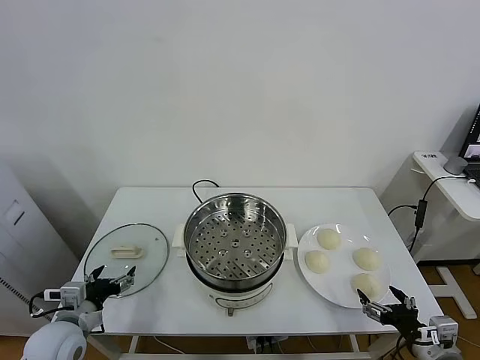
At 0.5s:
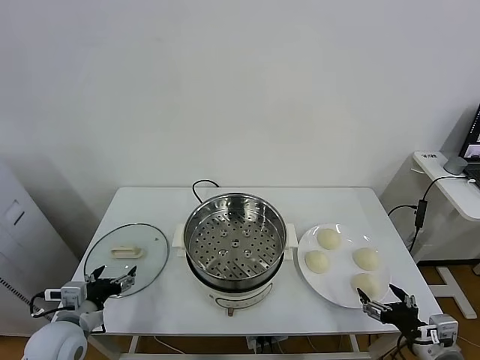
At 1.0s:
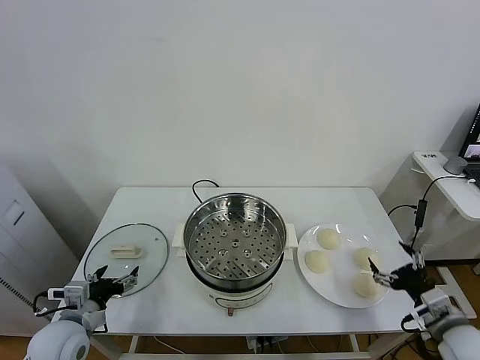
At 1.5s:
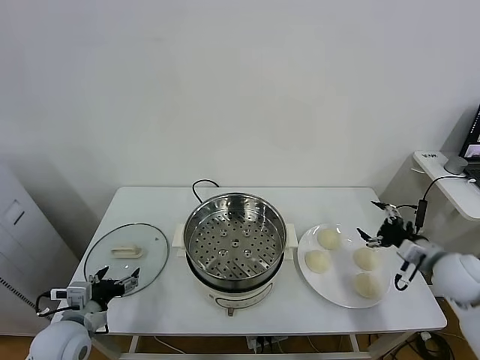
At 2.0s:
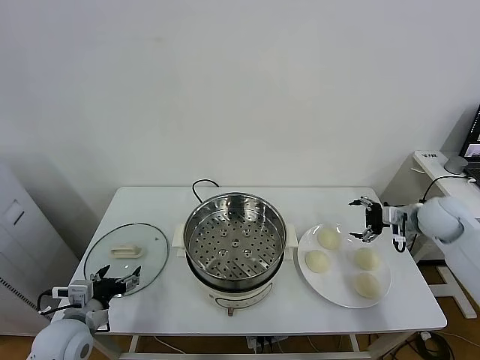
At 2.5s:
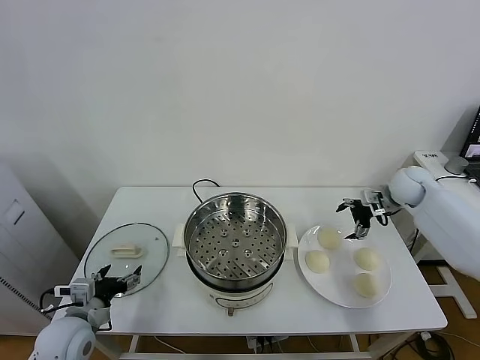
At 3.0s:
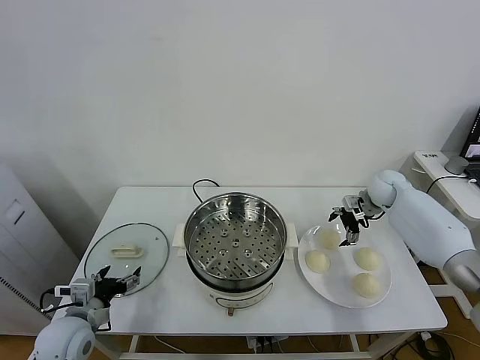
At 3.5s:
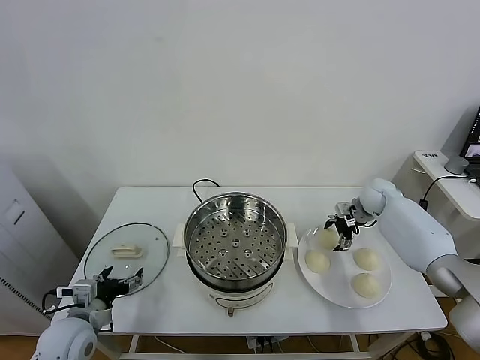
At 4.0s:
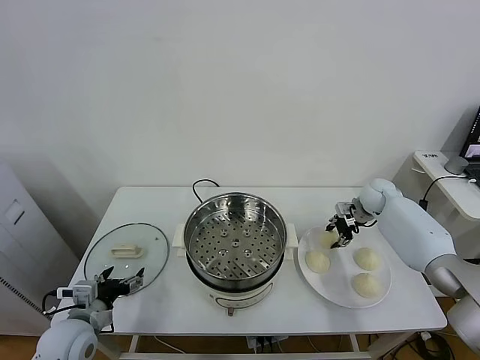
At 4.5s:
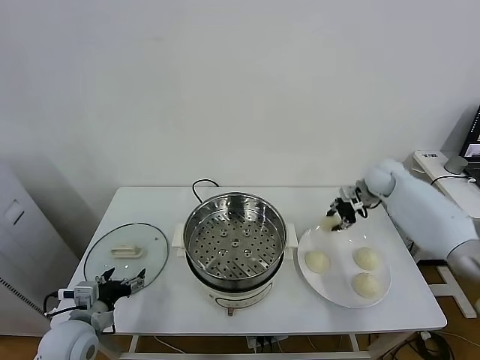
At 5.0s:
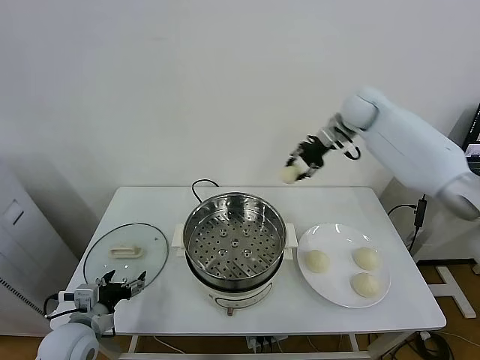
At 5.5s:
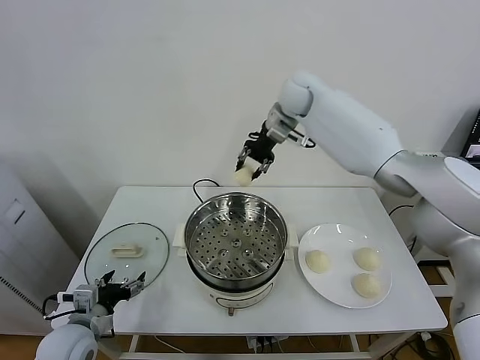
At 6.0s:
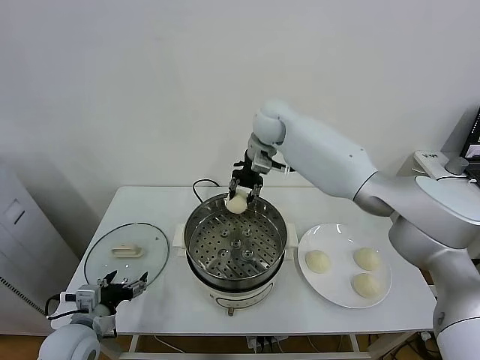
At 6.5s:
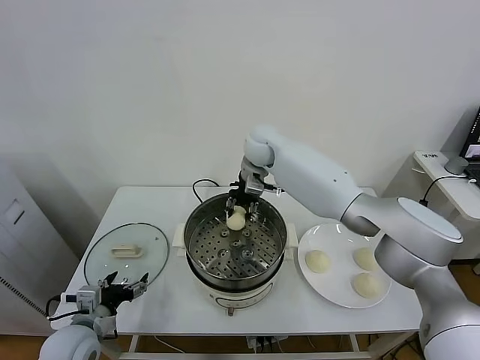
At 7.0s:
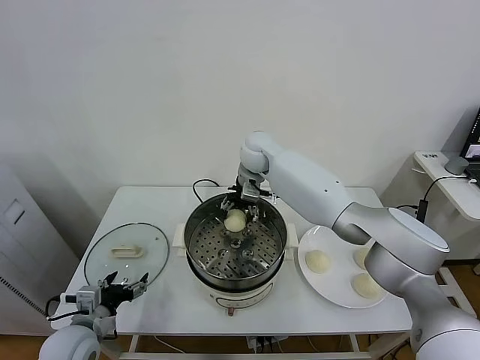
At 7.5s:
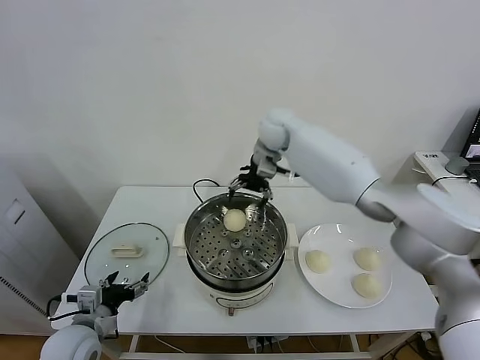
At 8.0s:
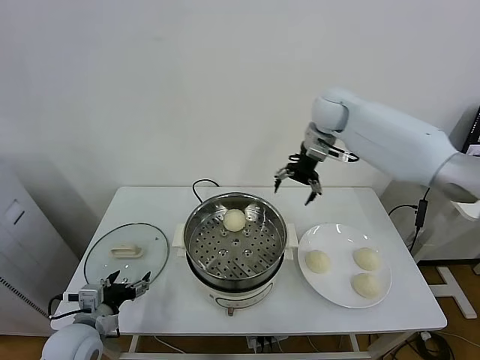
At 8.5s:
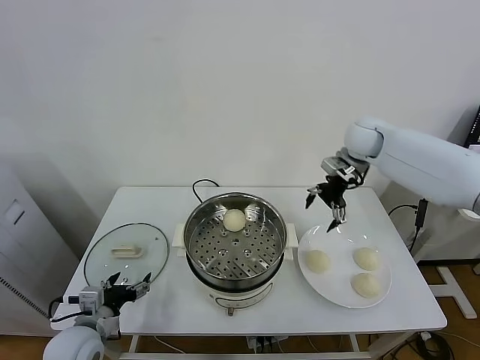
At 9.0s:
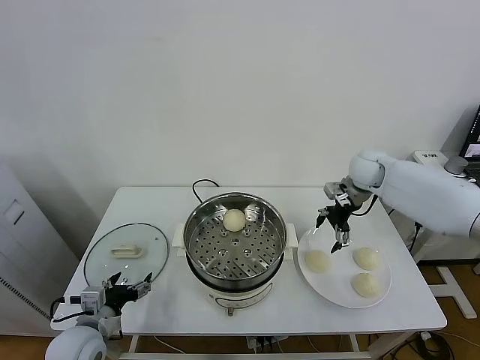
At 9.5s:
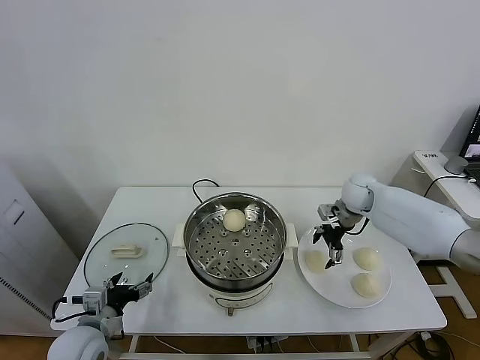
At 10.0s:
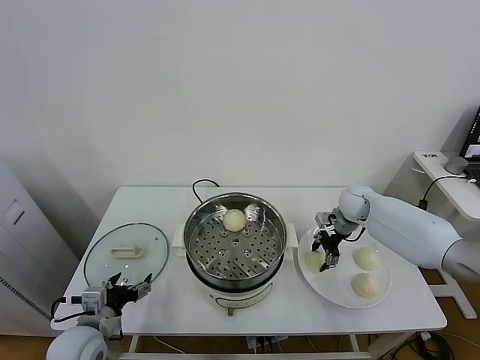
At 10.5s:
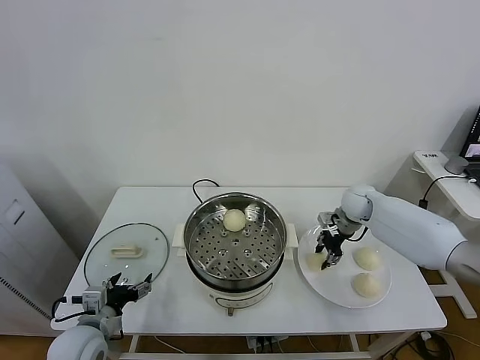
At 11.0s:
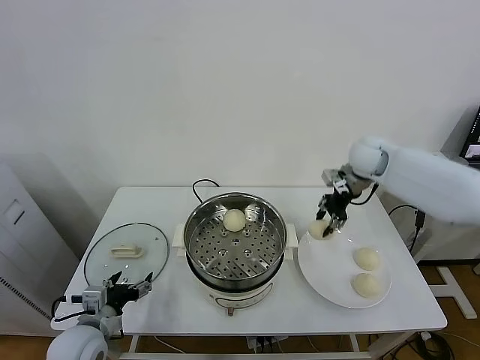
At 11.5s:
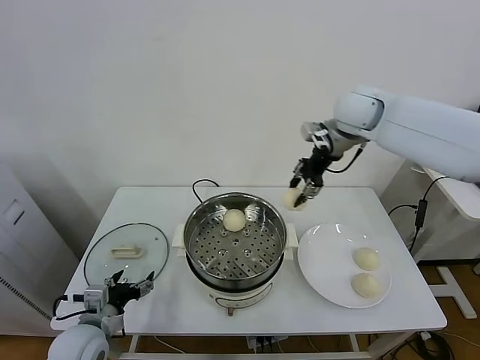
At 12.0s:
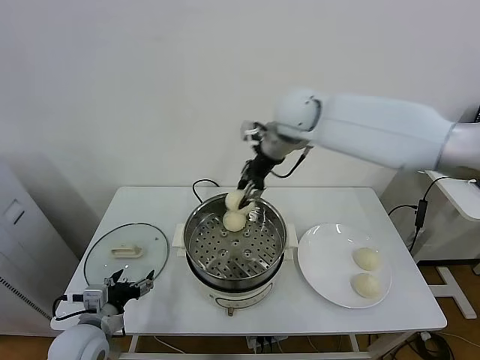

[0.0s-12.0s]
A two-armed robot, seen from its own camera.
Task of the whole recording: take steamed baozi put them in steamer.
Step, 0.0s to 4.0s: Grasp the baozi in the plate with right gripper.
Step, 4.5s to 7.0s: Place the baozi on the steamer with right gripper.
Step, 7.5s to 10.0s: Grasp the baozi in the plate with right gripper.
2.0s to 4.0s: The right gripper is displaced forward, downward and to the left by about 15 cm, and closes.
4.0s to 6.0s: The right gripper moves to the left and upward, some 40 cm.
6.0s to 8.0s: The right gripper goes about 15 cm to the right, and opens up.
8.0s to 10.0s: The right gripper is displaced downward by approximately 25 cm, and closes its fingers.
10.0s to 12.0s: The right gripper shifts some 35 cm upward and to the left.

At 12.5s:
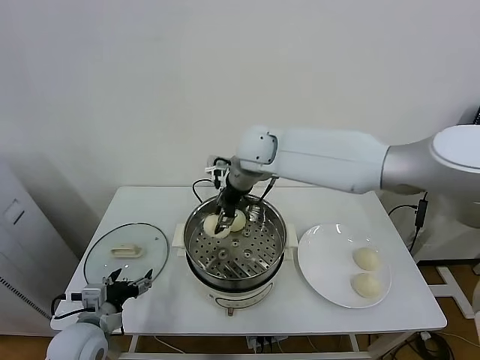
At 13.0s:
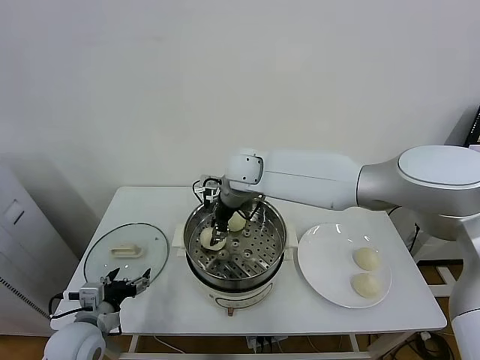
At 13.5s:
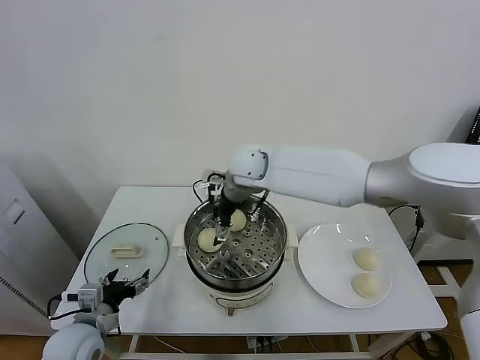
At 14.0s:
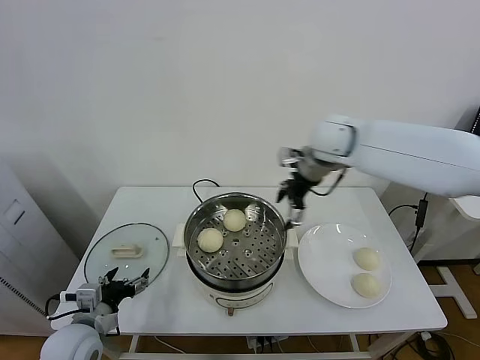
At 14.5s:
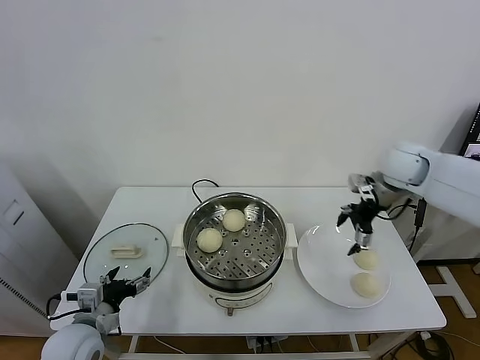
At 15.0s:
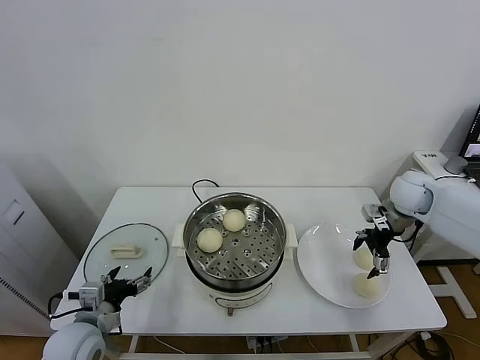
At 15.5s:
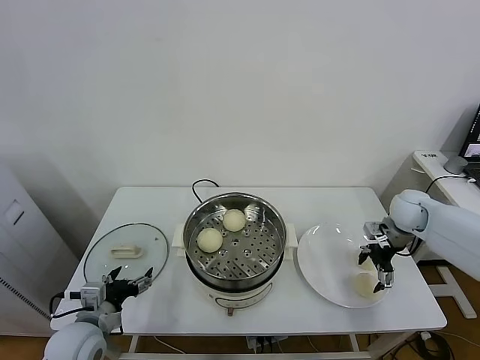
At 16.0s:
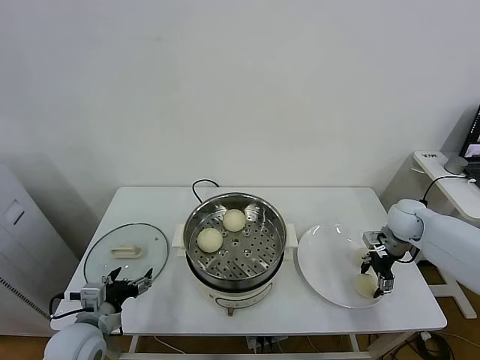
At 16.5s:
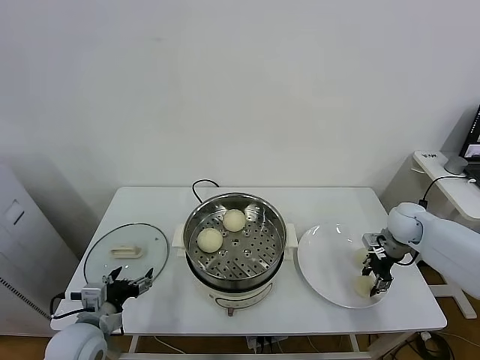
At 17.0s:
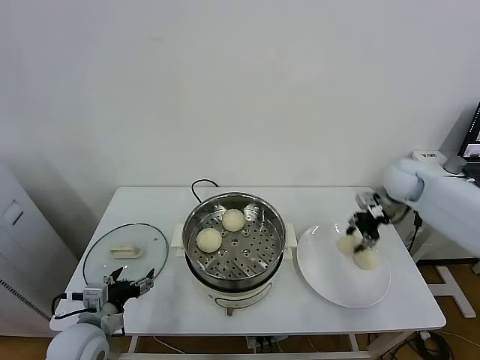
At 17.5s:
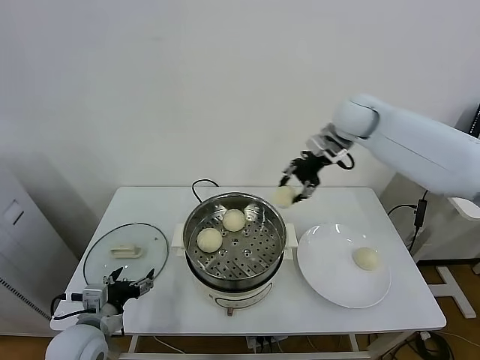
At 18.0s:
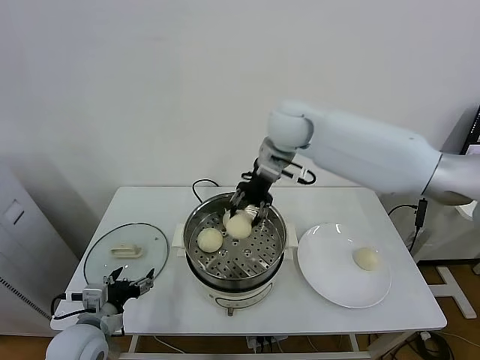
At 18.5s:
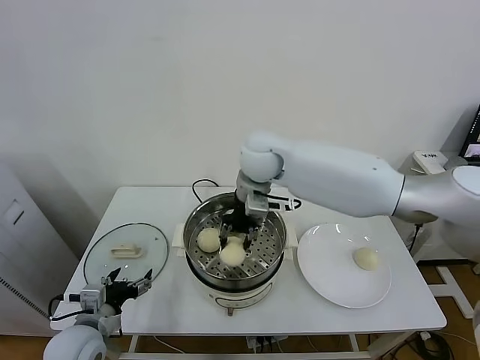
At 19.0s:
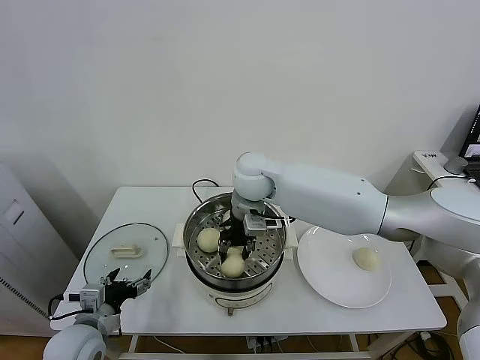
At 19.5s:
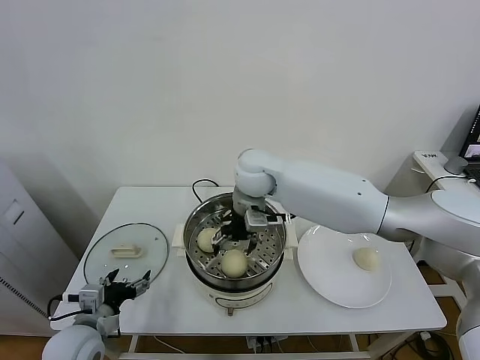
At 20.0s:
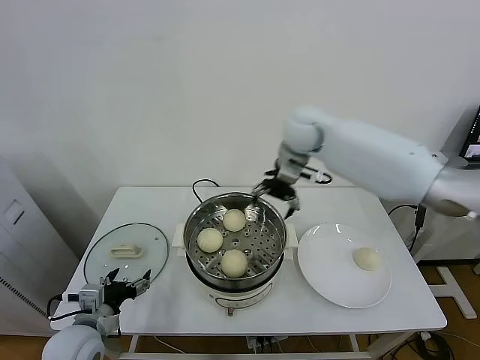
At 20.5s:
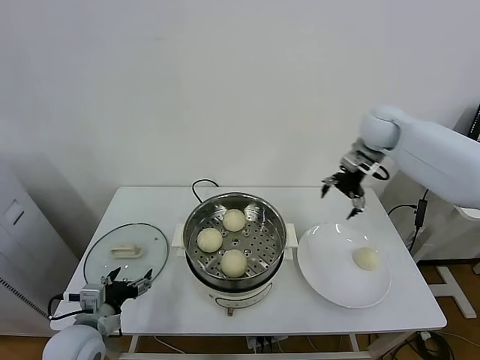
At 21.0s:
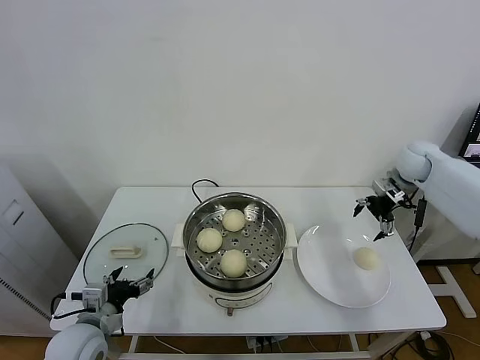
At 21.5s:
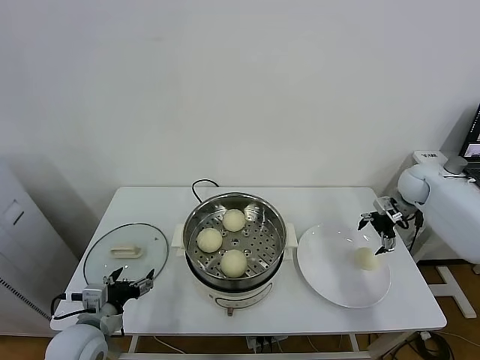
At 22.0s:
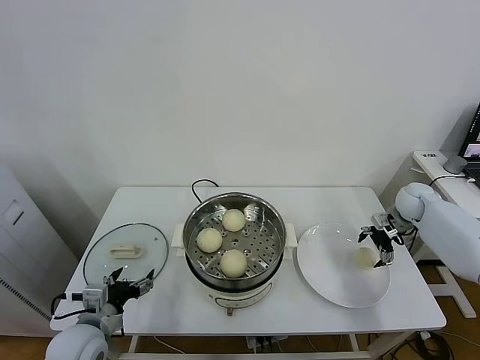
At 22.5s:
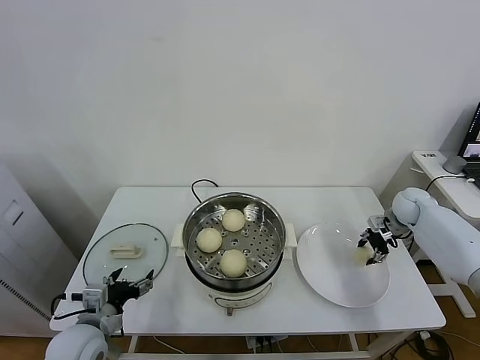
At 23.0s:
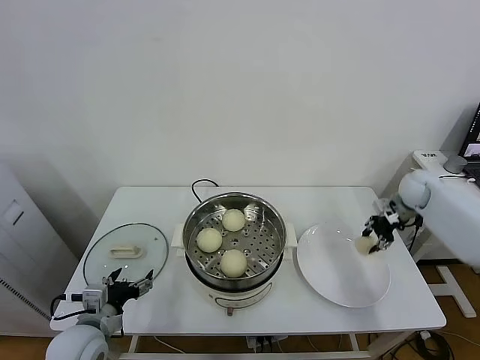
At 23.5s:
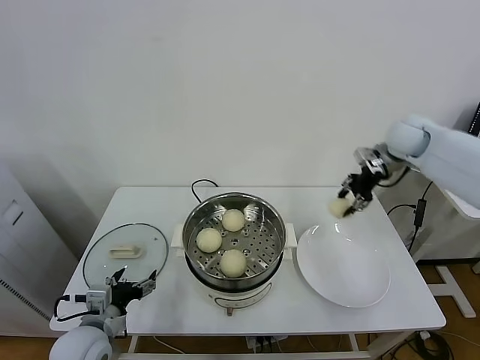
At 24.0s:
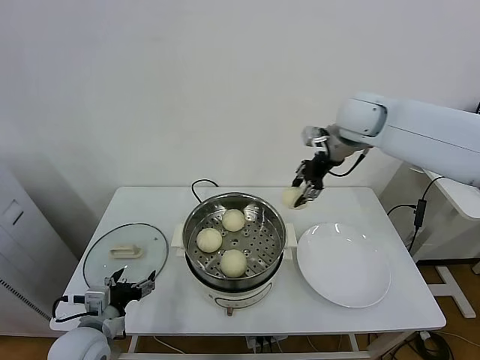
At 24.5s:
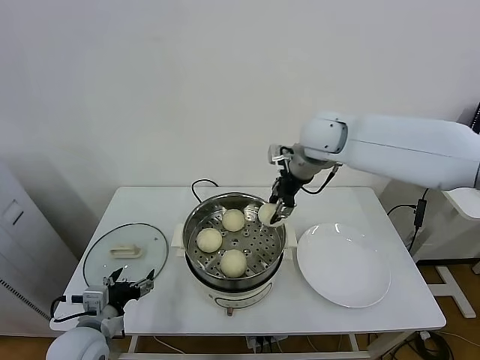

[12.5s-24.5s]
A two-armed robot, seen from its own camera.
Task of the whole recording: take steamed baozi put them in steamer.
Step, 14.0s to 16.5s: Grasp the baozi in the plate with right gripper.
Step, 17.0s to 19.5s: Place the baozi on the steamer with right gripper.
Step, 20.0s to 22.5s: Grasp the baozi in the plate with right gripper.
12.5s to 14.5s: The right gripper is displaced to the right by approximately 35 cm, and opens up.
14.5s to 16.5s: The right gripper moves downward, approximately 15 cm, and closes up.
16.5s to 18.5s: The right gripper travels to the left and upward by roughly 40 cm.
18.5s to 20.5s: The right gripper heads to the right, covering some 30 cm, and opens its fingers.
20.5s to 22.5s: The right gripper shifts some 25 cm downward and to the right, and closes up.
22.5s to 24.5s: The right gripper heads to the left and upward, covering approximately 40 cm.

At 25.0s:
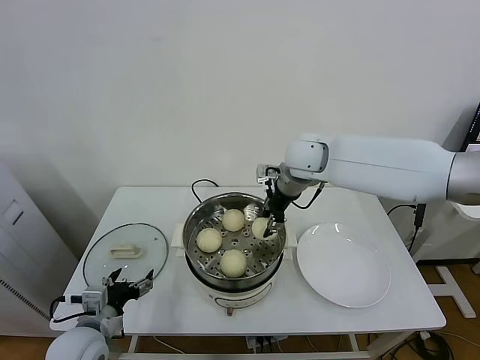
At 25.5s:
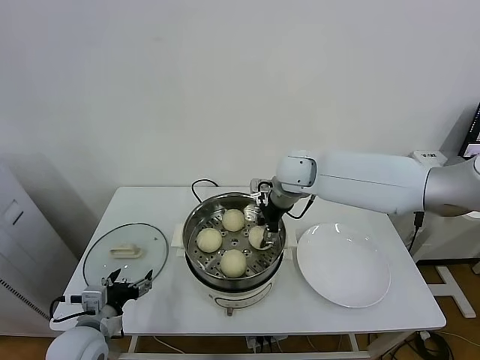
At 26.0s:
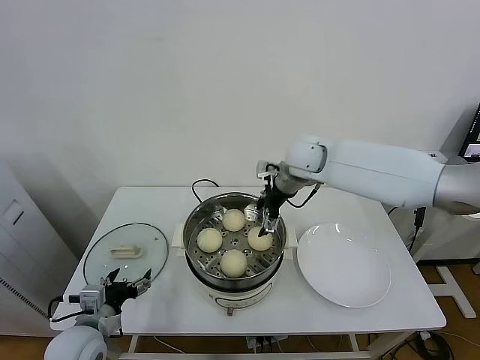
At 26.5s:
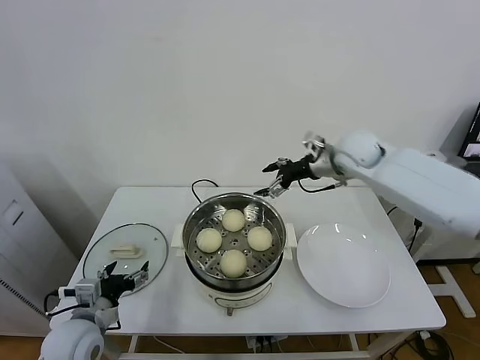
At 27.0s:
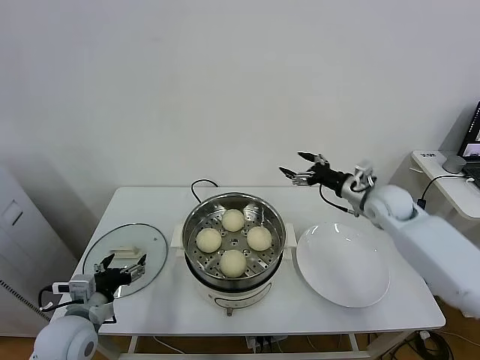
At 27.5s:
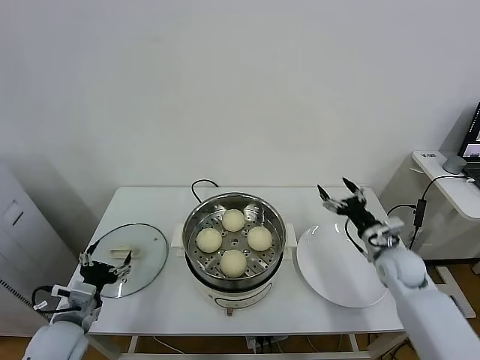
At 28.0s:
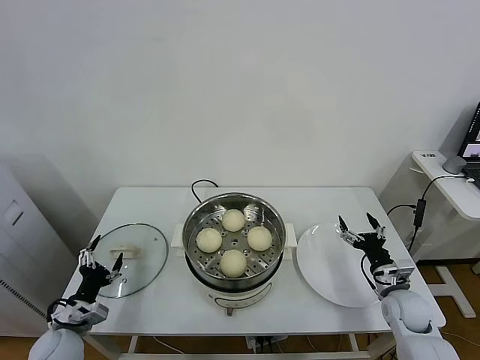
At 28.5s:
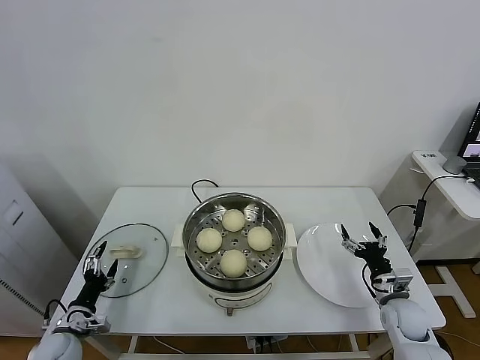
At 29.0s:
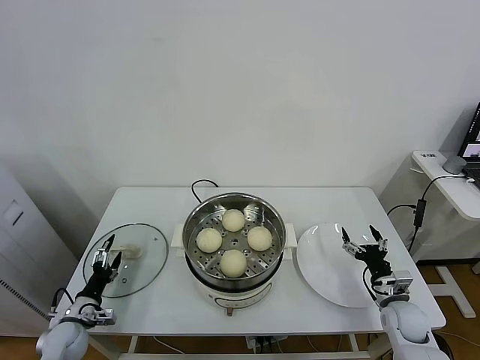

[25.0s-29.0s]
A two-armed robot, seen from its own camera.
Task of the whole recording: take steamed baozi put them in steamer.
25.0s to 27.0s: The right gripper travels to the right and downward by about 25 cm, and opens its fingers.
27.0s to 29.0s: The right gripper moves downward and backward, approximately 30 cm. Meanwhile the left gripper moves downward and to the left, approximately 20 cm.
